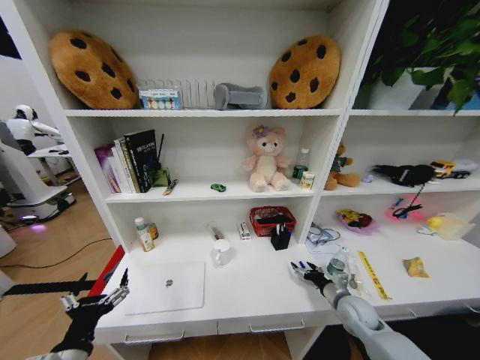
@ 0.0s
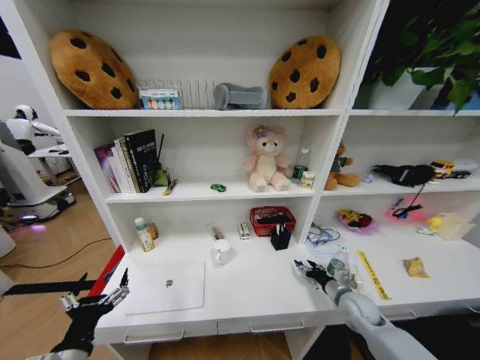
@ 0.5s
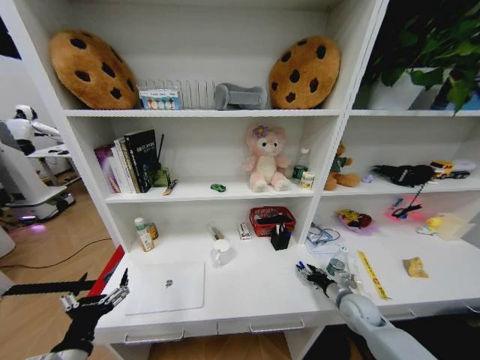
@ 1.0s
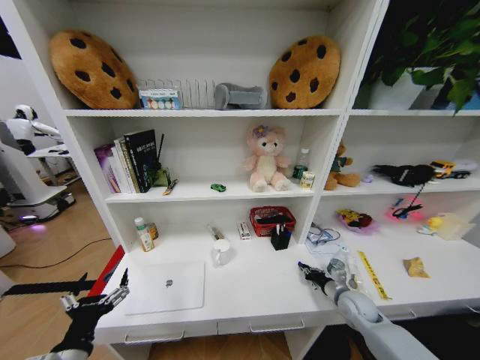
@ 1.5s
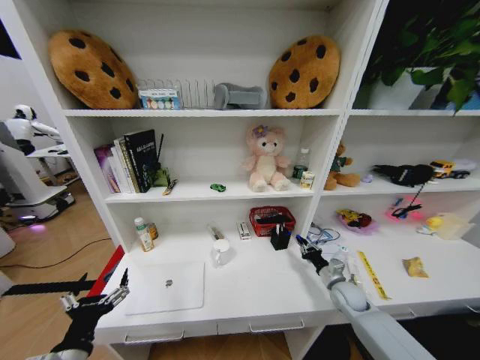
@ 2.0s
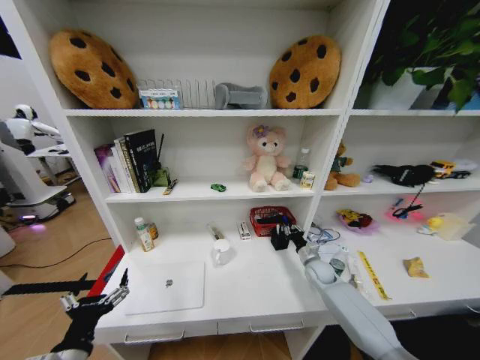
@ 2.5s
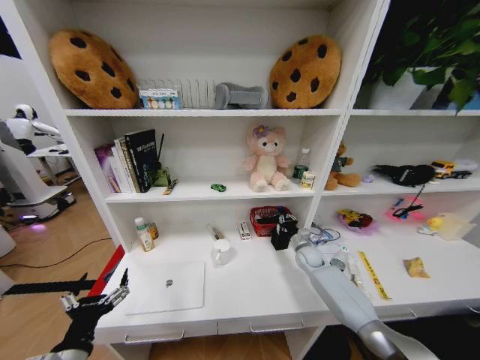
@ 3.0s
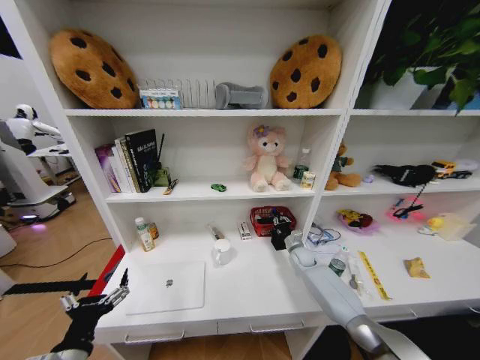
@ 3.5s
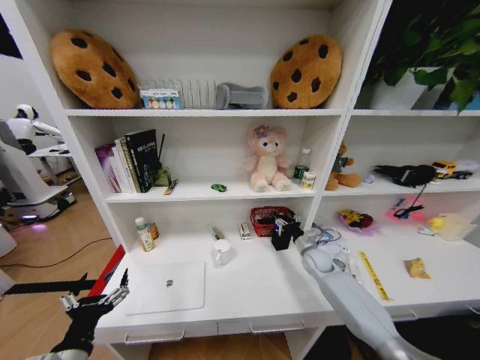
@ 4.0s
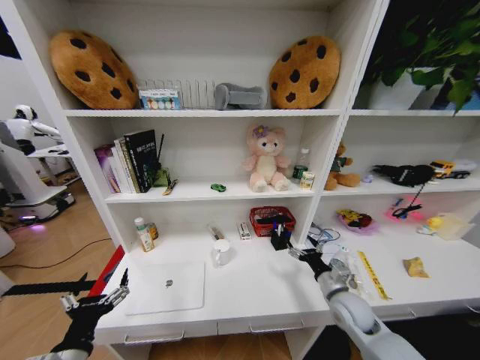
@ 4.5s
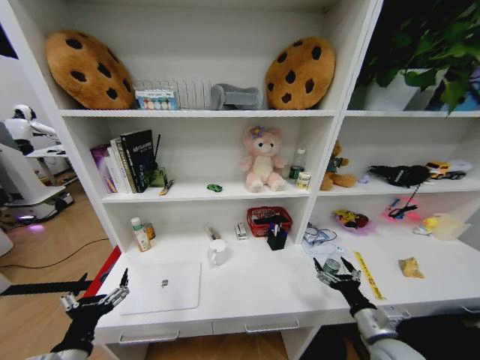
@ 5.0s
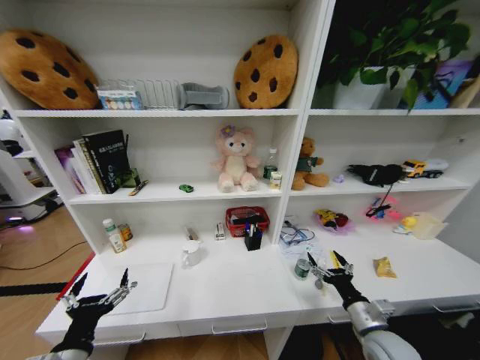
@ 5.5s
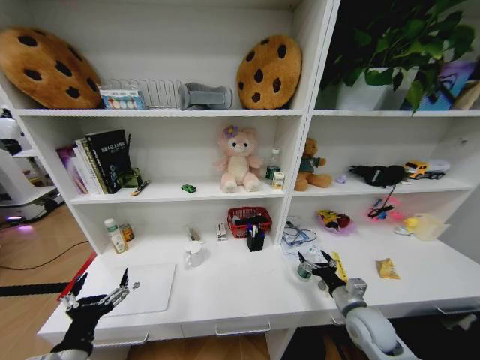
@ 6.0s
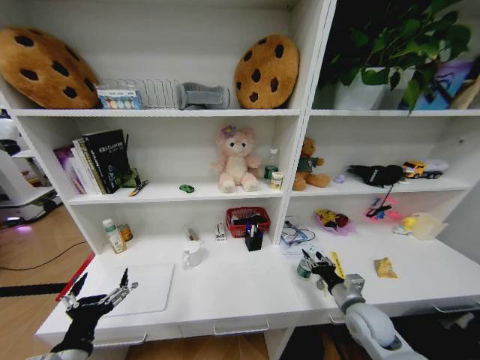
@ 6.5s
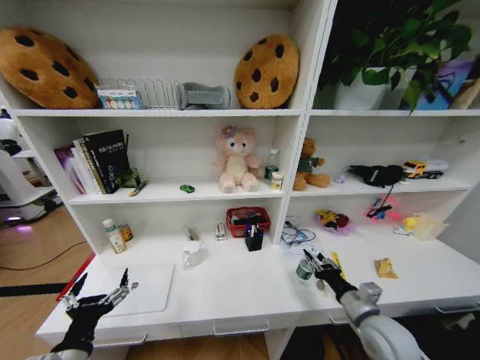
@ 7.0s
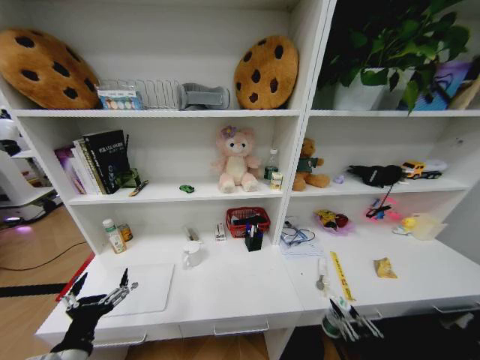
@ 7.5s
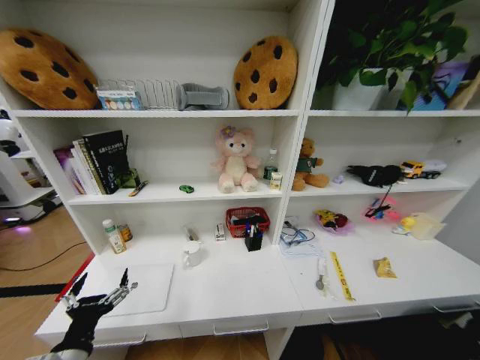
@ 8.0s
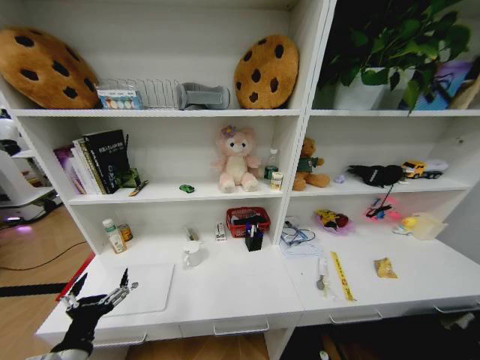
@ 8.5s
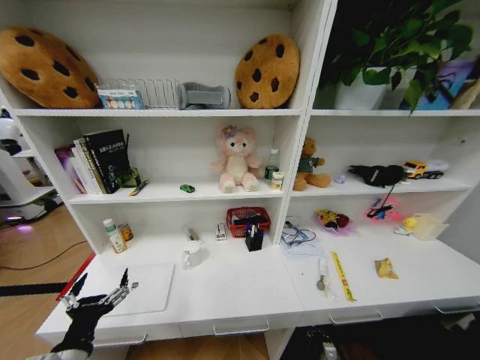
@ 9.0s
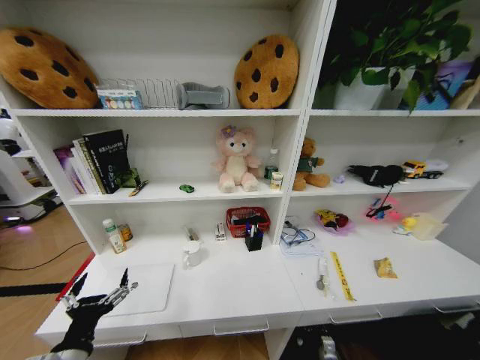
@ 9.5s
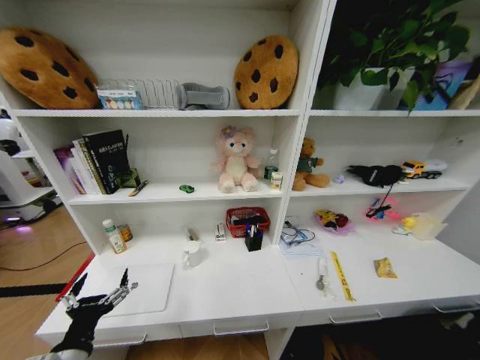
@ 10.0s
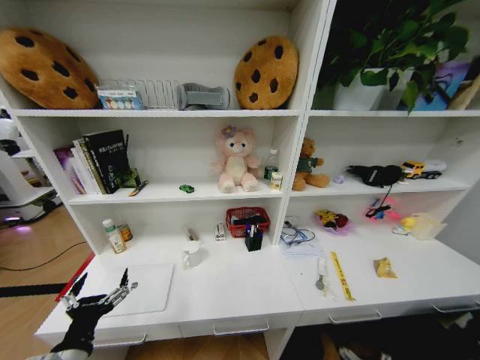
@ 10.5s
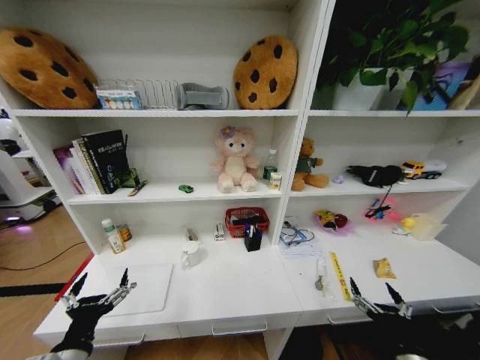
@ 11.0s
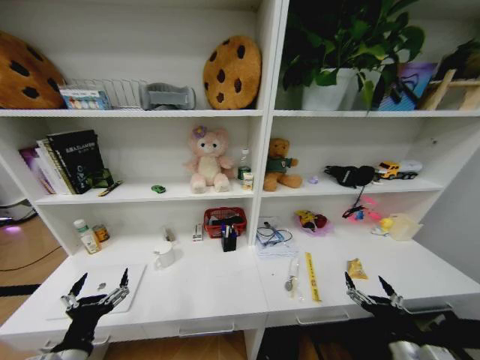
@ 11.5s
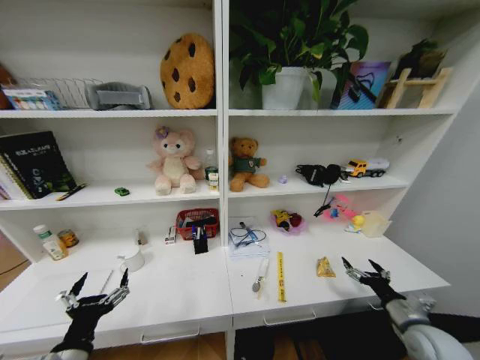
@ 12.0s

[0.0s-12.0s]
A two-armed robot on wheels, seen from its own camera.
Task of the whole recording: Organize the objects on the table.
0.0s to 2.0s: The right gripper goes about 5 cm forward, and closes.
2.0s to 4.0s: The right gripper goes roughly 15 cm forward and to the left, and opens up.
4.0s to 6.0s: The right gripper goes some 20 cm backward.
6.0s to 8.0s: The right gripper travels backward by approximately 30 cm, and closes up.
8.0s to 10.0s: The right gripper goes approximately 25 cm downward and forward, and opens its fingers.
10.0s to 12.0s: The right gripper travels upward and forward by approximately 35 cm.

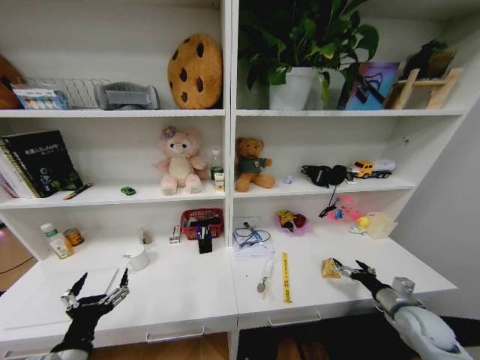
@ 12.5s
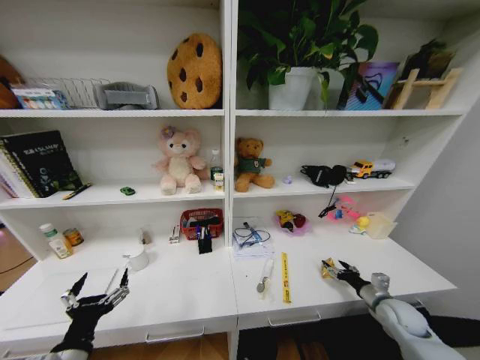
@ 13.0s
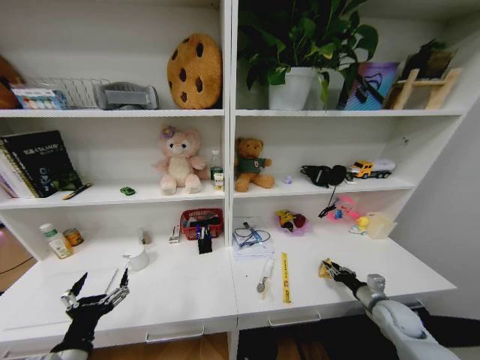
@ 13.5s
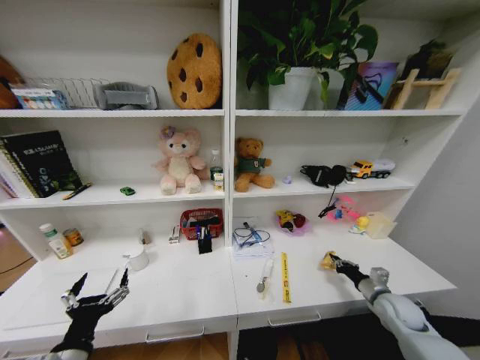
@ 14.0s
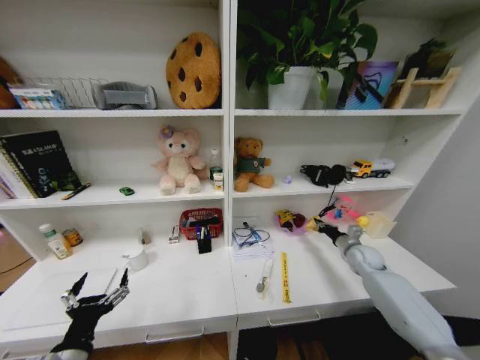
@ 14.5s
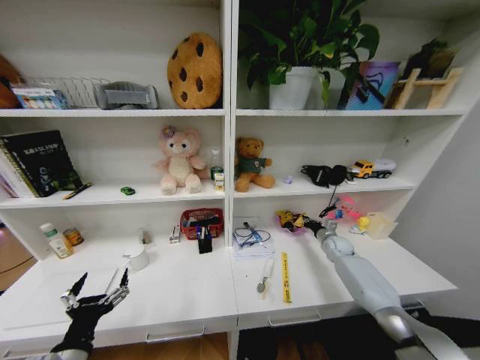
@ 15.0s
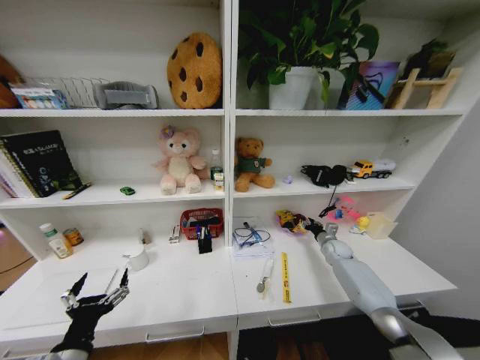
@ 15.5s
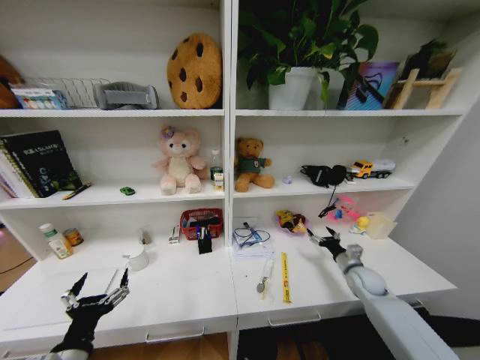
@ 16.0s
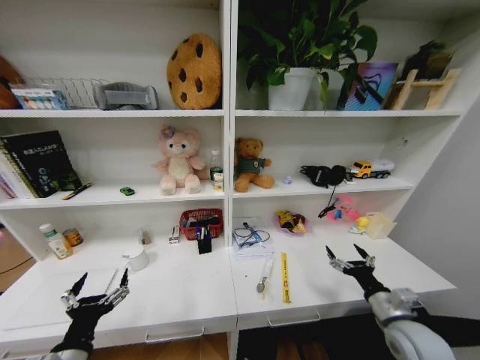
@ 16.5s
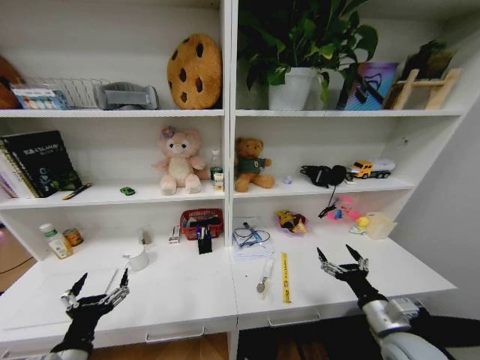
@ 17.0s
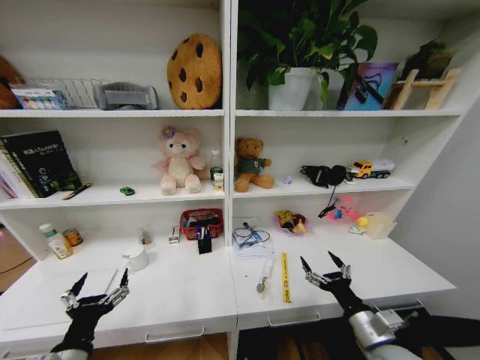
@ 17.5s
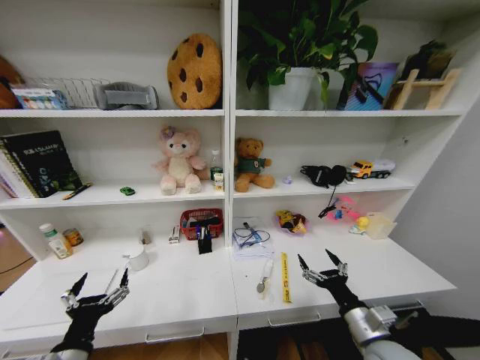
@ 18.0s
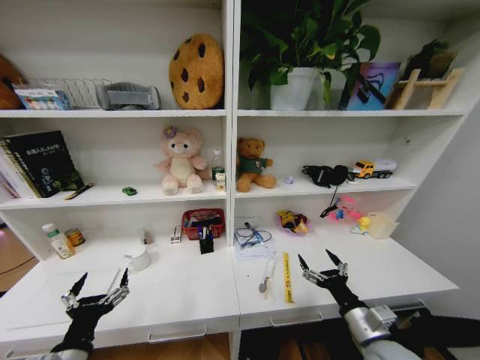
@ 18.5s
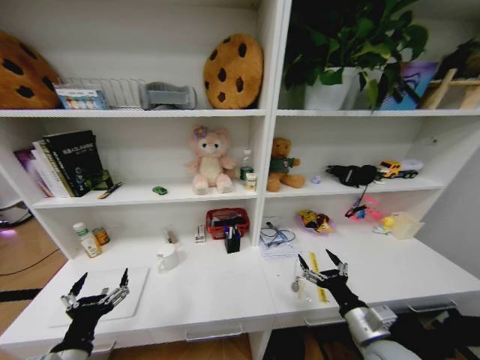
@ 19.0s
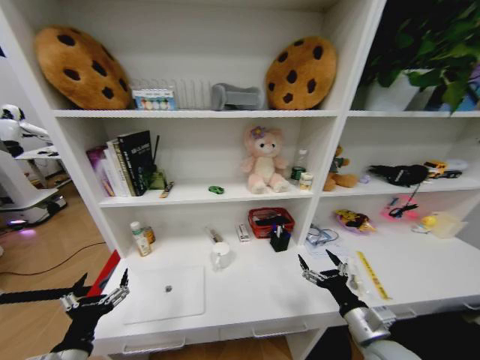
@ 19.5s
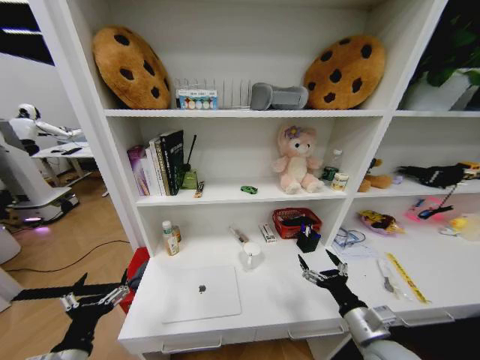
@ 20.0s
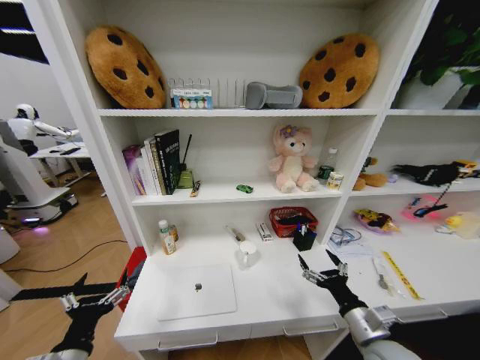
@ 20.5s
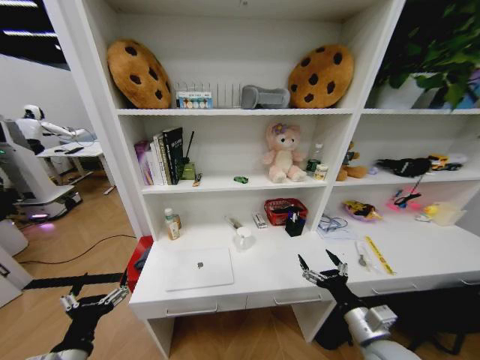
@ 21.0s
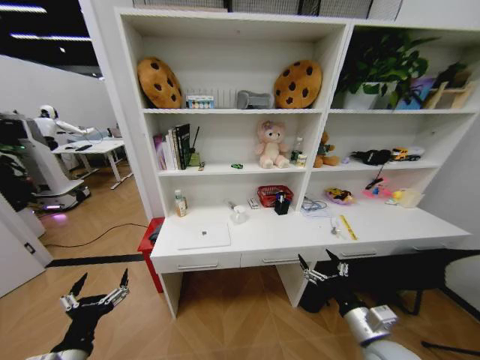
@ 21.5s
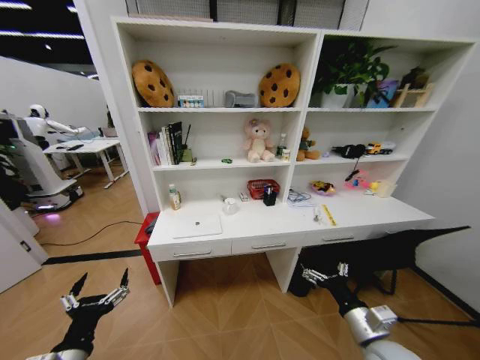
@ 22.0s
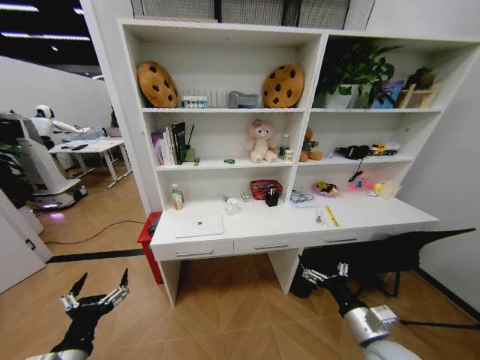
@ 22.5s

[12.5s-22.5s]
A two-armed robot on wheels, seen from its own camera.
Task of the whole recording: Organize the objects on the table.
12.5s to 14.5s: The right gripper travels forward by about 20 cm, and closes.
14.5s to 16.5s: The right gripper is displaced backward by approximately 25 cm, and opens.
16.5s to 18.5s: The right gripper heads to the left, covering approximately 10 cm.

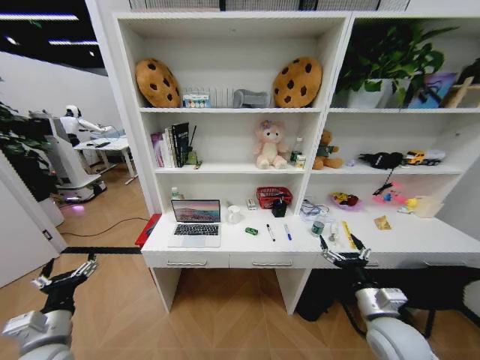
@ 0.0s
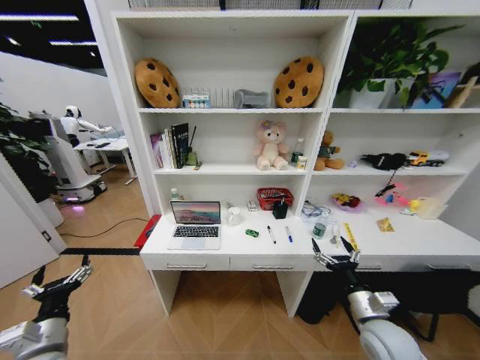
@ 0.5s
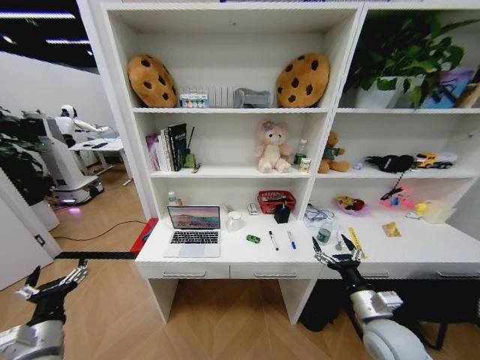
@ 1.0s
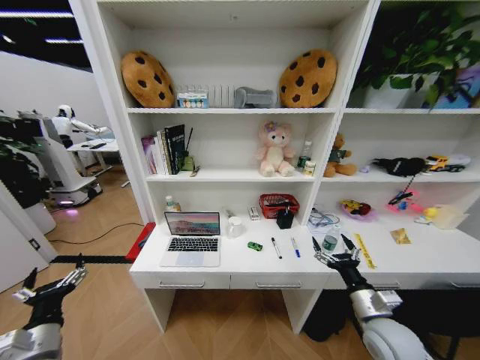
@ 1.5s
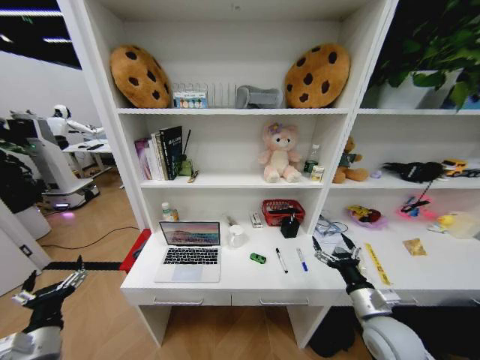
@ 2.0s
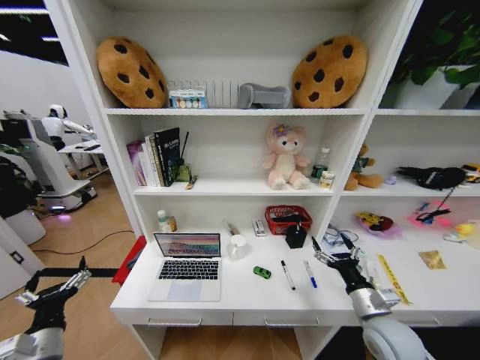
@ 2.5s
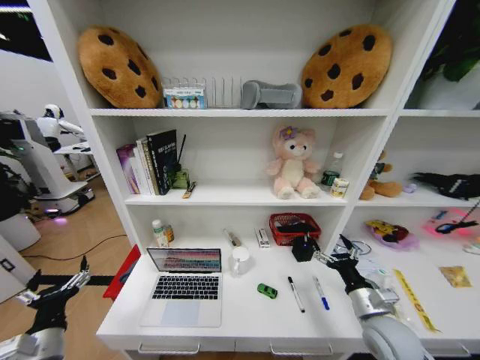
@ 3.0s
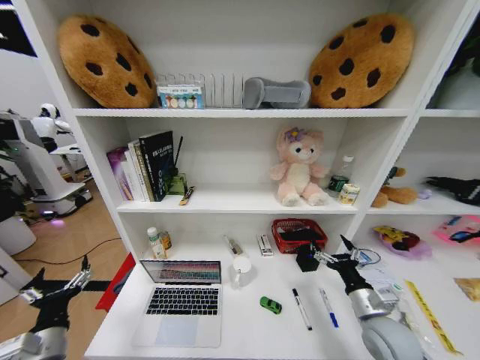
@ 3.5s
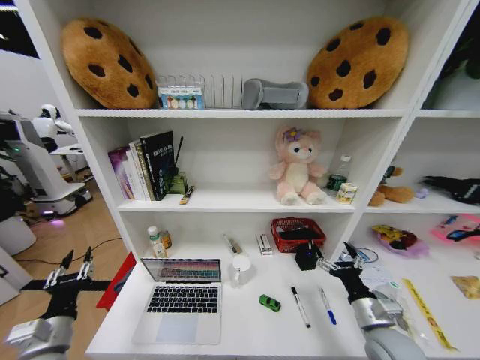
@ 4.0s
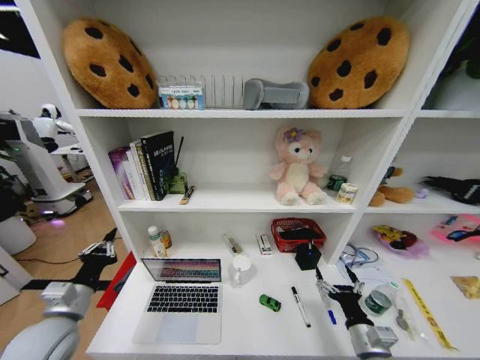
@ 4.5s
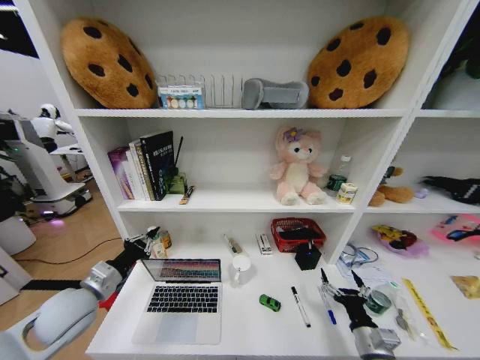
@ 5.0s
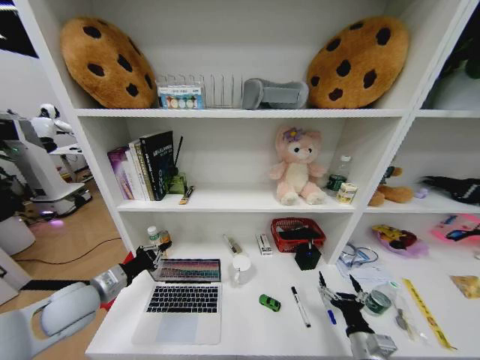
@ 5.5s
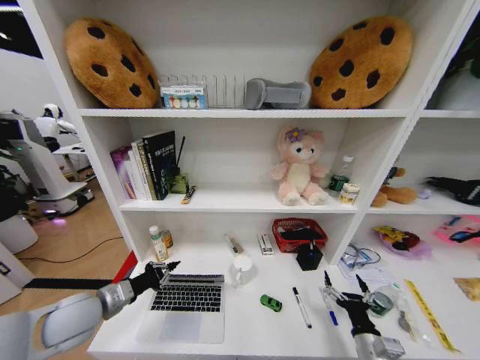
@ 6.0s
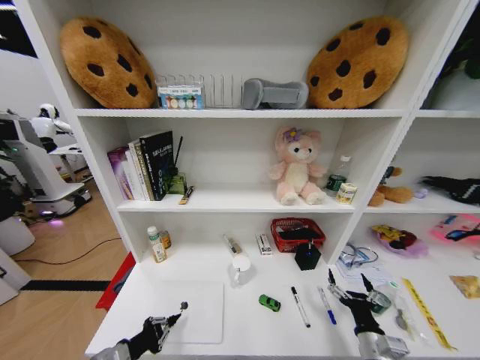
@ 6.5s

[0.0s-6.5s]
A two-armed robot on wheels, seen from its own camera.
Task of the whole recording: Organize the objects on the table.
2.0s to 4.5s: The right gripper is displaced downward and backward by roughly 10 cm; the left gripper goes about 10 cm forward and upward, and closes up.
4.5s to 6.5s: The left gripper travels downward and backward by approximately 10 cm.
